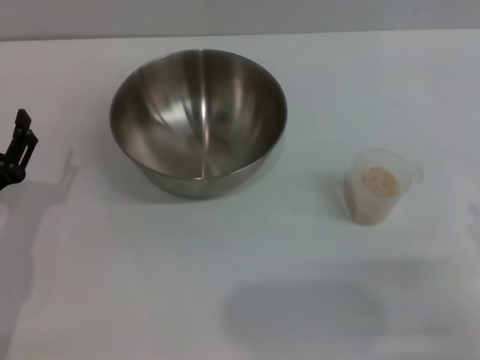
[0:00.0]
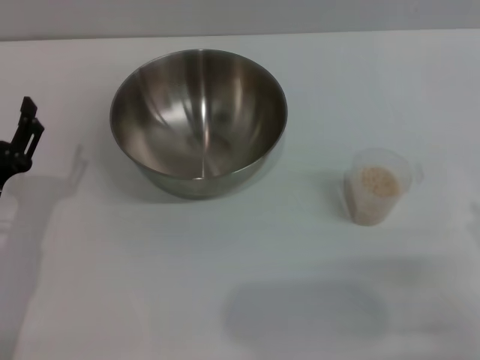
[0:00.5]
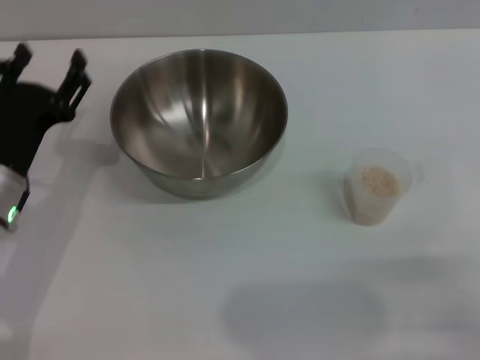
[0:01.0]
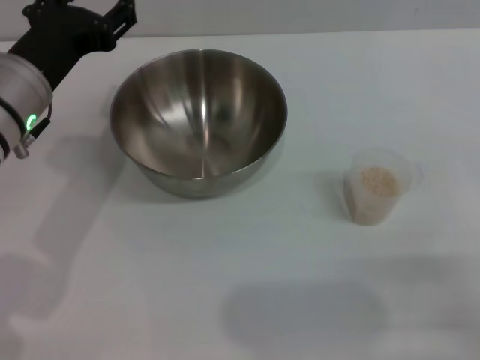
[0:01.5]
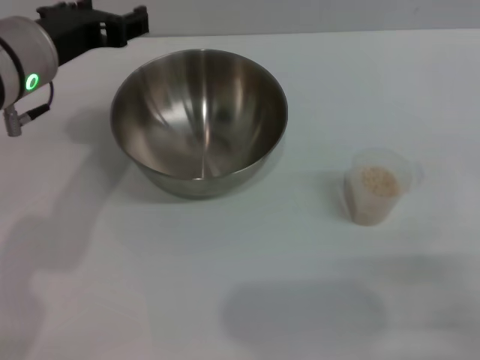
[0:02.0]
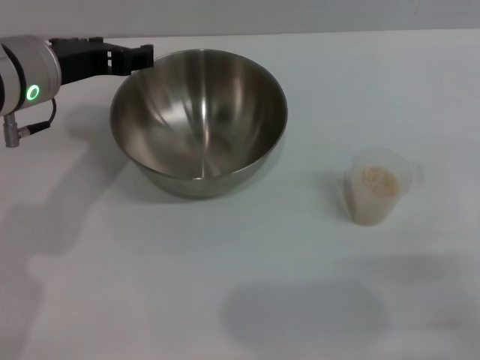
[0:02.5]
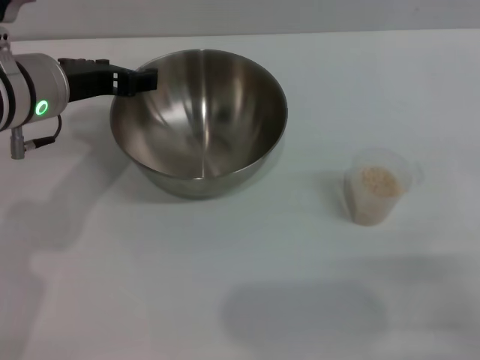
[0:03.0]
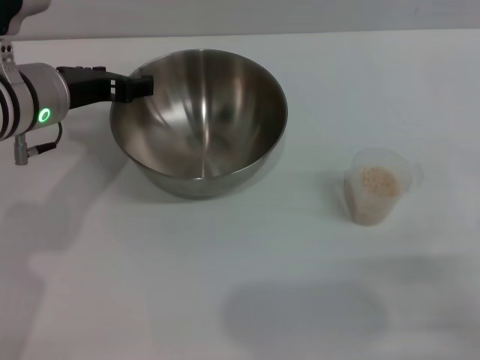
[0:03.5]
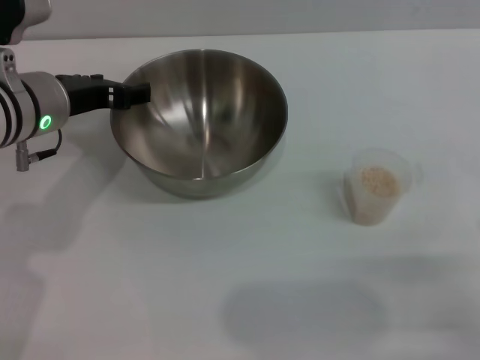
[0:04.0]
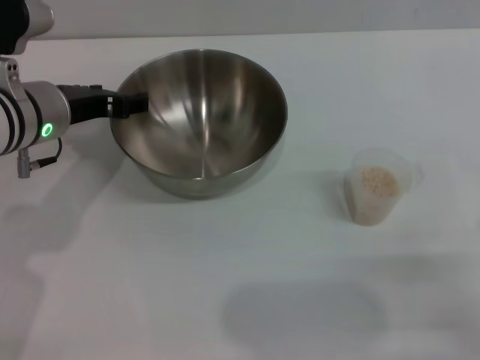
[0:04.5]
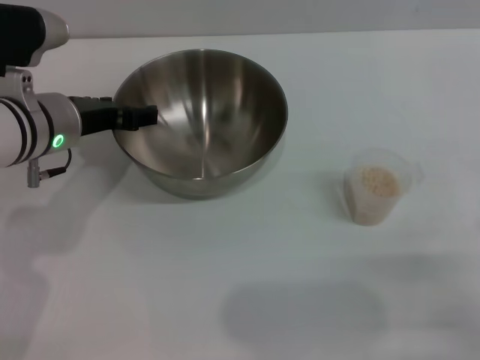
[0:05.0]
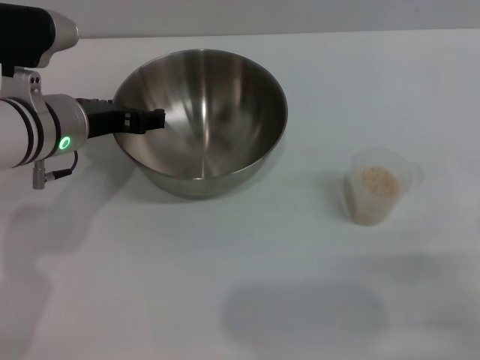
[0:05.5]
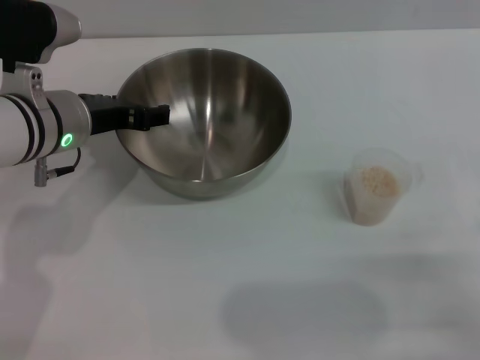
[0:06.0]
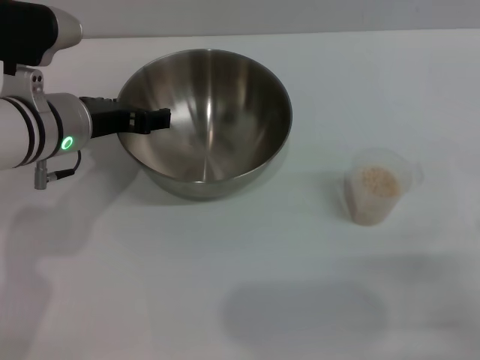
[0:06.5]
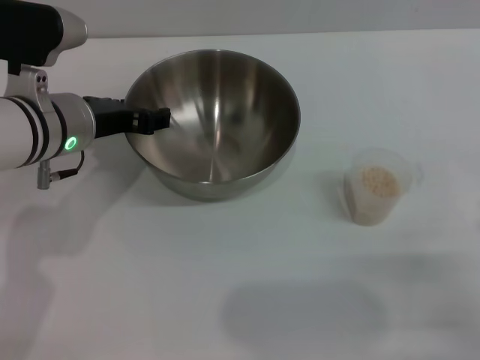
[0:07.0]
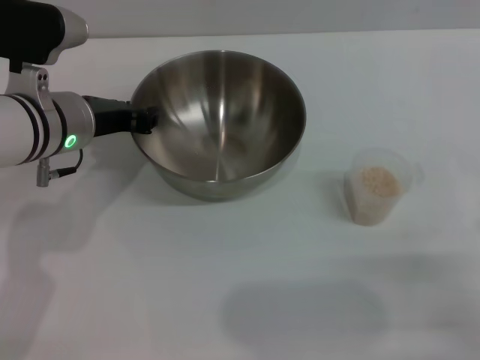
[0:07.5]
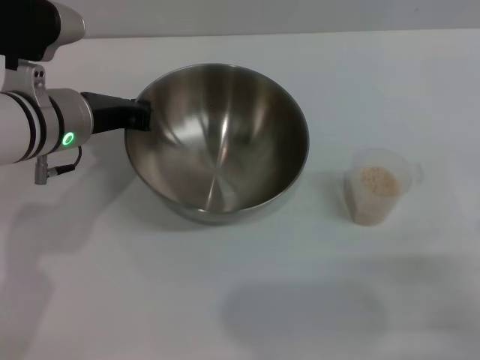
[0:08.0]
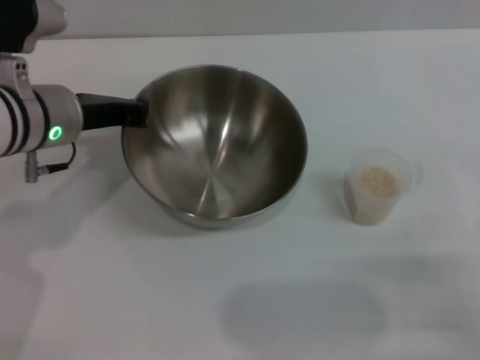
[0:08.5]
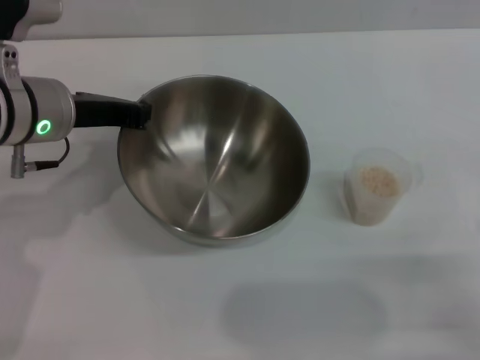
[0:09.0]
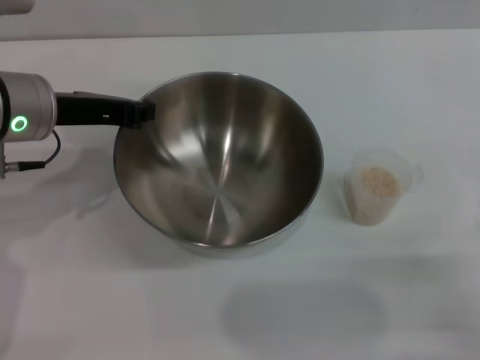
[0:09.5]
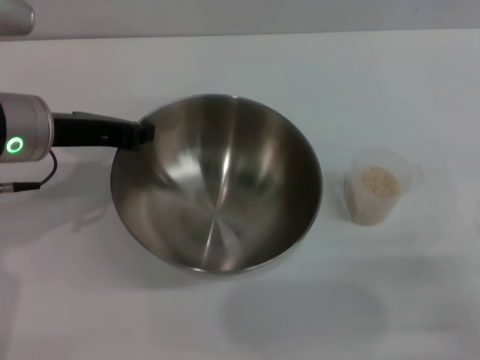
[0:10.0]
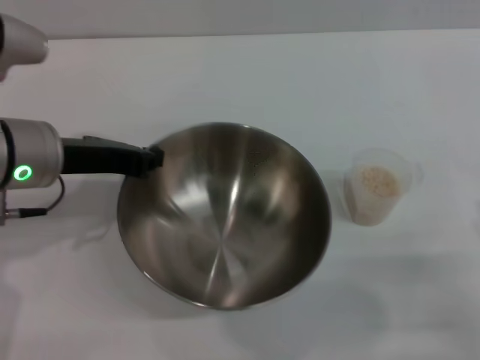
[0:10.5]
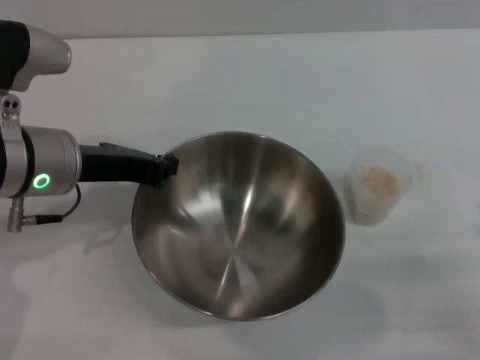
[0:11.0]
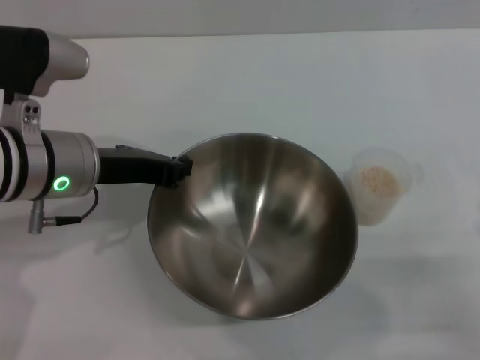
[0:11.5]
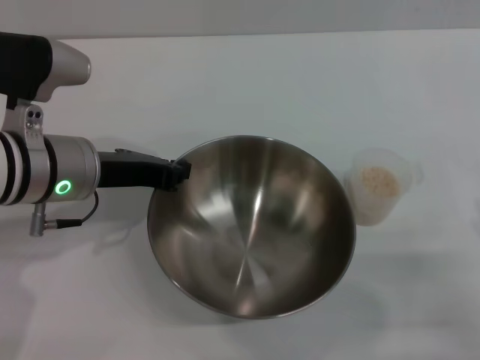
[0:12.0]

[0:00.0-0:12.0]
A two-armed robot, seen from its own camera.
Task of the whole recording: Place the bowl in the middle of the table with one hand and pour the rice from the grain cup into it with the other hand.
Step, 0:00.0 to 0:09.0: Pick up the bowl with the left gripper.
0:00.0 to 0:02.0: The left gripper travels upward, forward and to the right by roughly 25 cm.
0:02.0 to 0:04.0: The left gripper goes about 5 cm downward.
0:04.0 to 0:06.0: There are only small adjustments of the grippers.
0:06.0 to 0:08.0: The left gripper closes its fingers.
0:08.0 to 0:10.0: The left gripper moves roughly 5 cm.

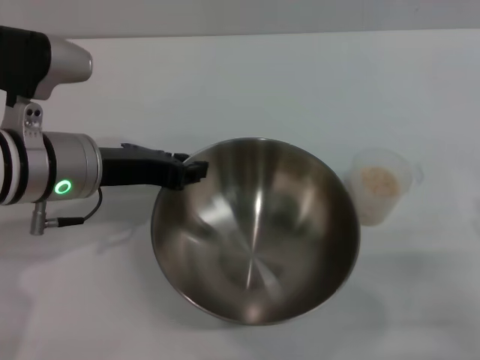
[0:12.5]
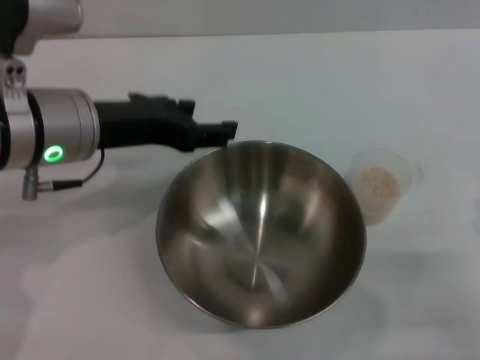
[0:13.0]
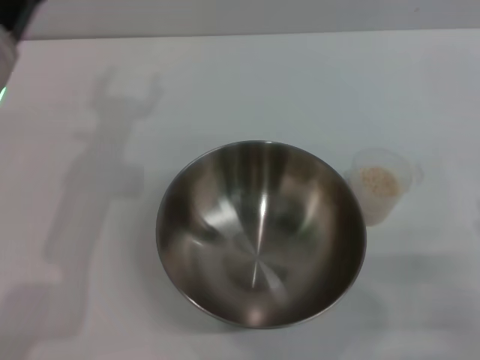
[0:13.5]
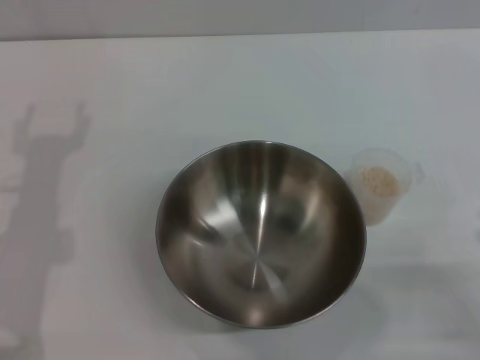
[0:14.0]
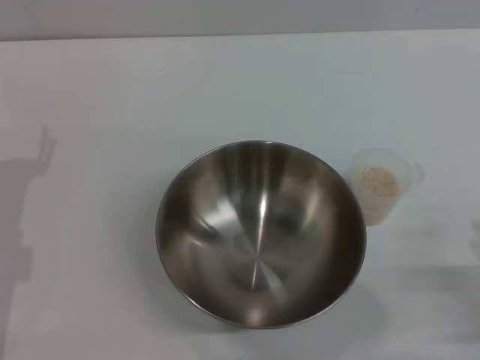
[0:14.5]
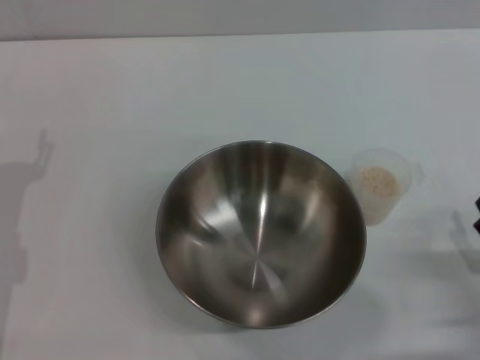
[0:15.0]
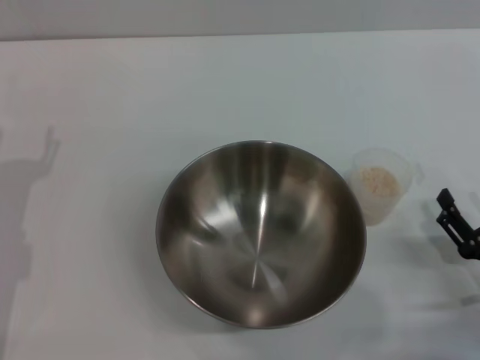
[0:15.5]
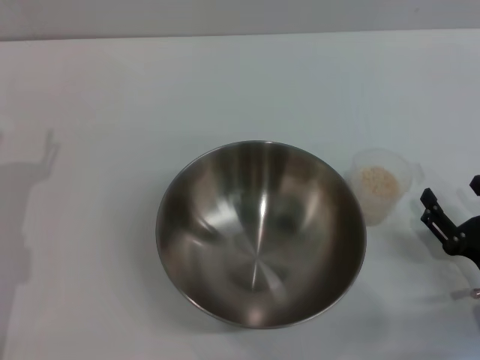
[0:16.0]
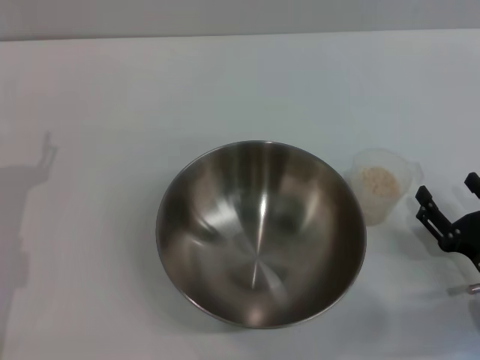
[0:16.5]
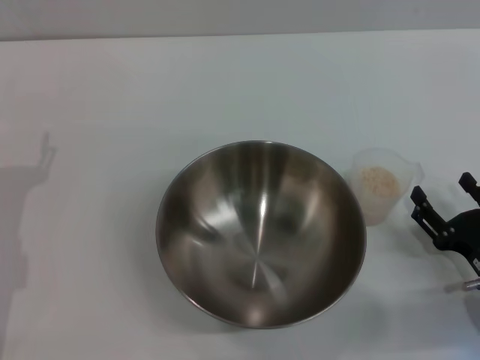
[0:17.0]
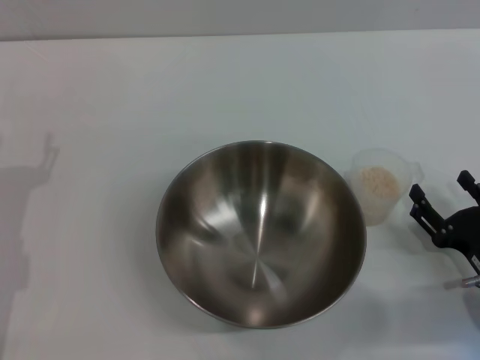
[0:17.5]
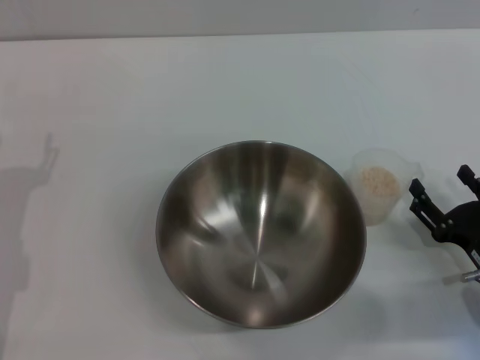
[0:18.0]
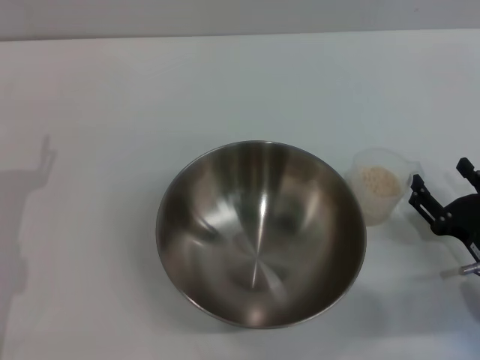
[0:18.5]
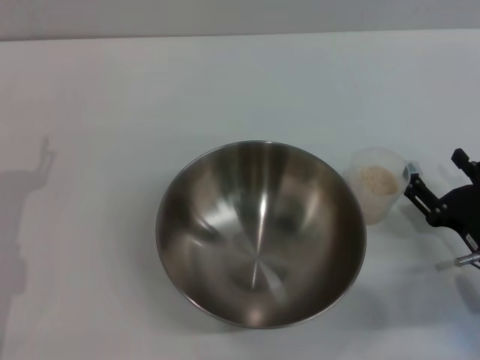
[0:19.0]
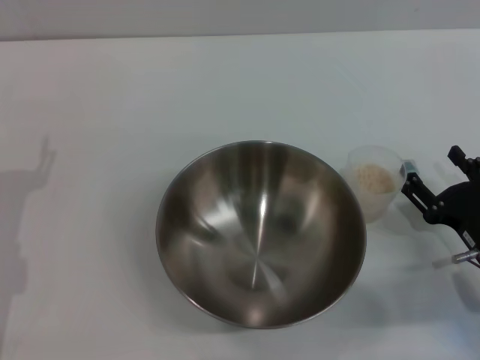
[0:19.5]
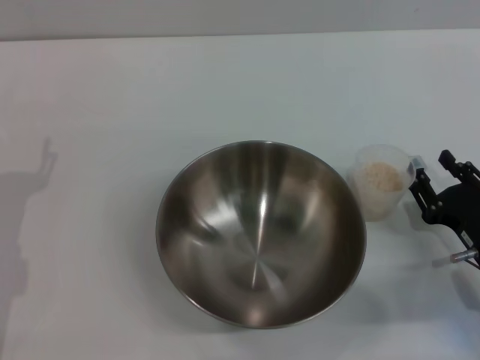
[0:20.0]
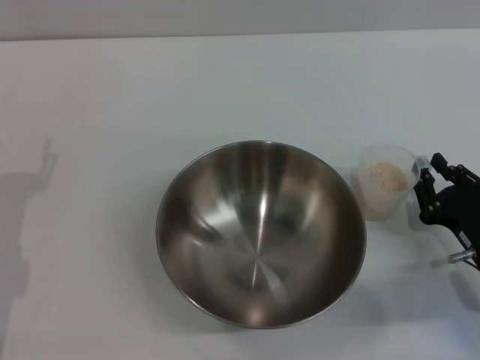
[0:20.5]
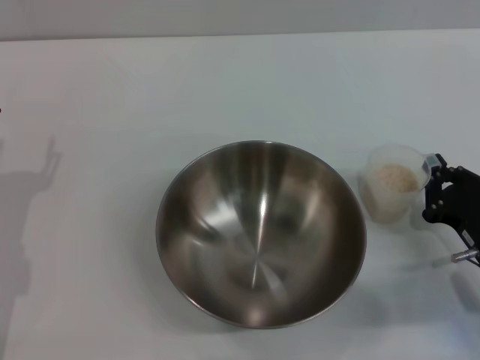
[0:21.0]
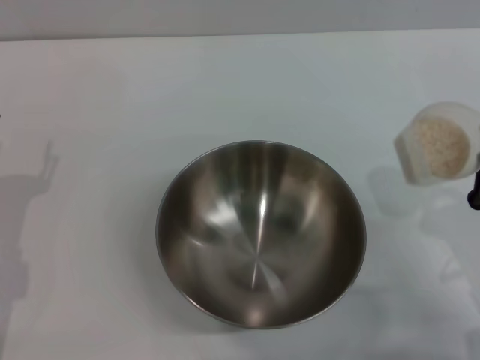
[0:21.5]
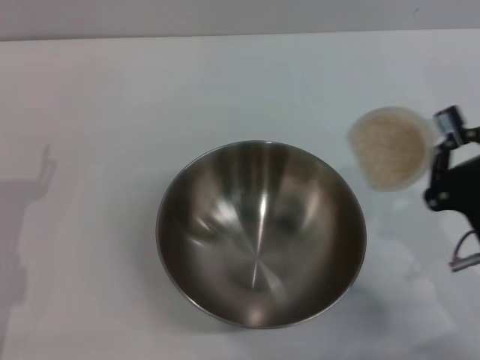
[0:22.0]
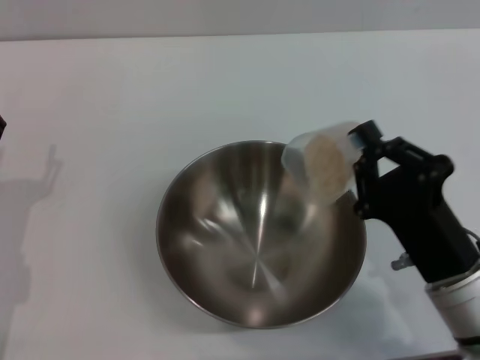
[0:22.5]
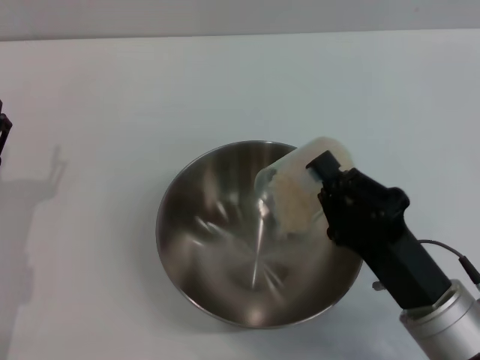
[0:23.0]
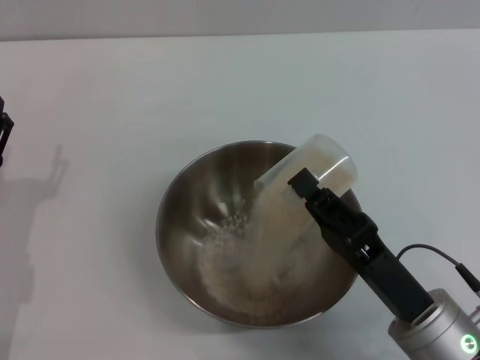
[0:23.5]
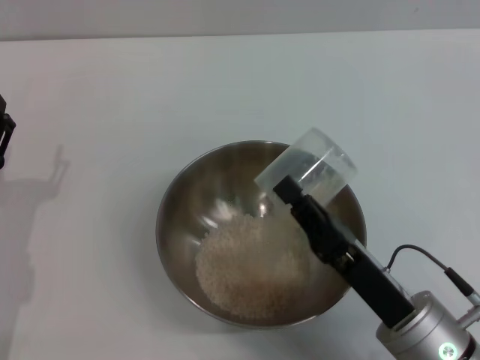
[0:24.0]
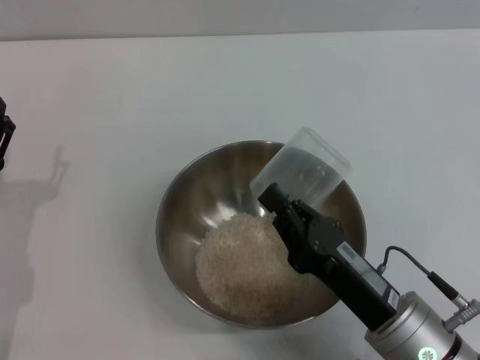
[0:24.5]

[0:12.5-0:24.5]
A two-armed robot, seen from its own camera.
Task of the whole recording: Place the bowl in the middle of the table with one hand and pour the rice from the grain cup into it with the other hand.
Step, 0:13.5 to 0:21.0: Pick up the cup with rice in it with the right gripper.
0:12.5 to 0:14.5: The left gripper is displaced to the left, downward and backward by roughly 15 cm, and opens up.
0:14.5 to 0:16.5: The right gripper shifts some 5 cm forward.
0:16.5 to 0:18.5: The grippers make only small movements.
0:18.5 to 0:20.5: The right gripper closes.
0:20.5 to 0:22.5: The right gripper heads to the left and upward, covering roughly 10 cm.

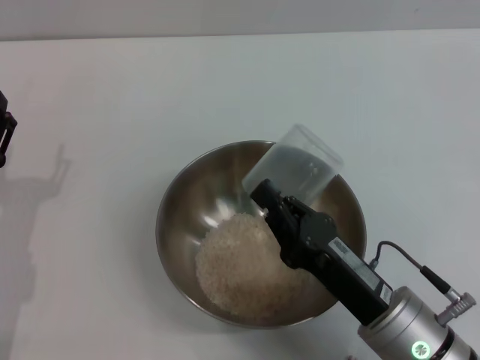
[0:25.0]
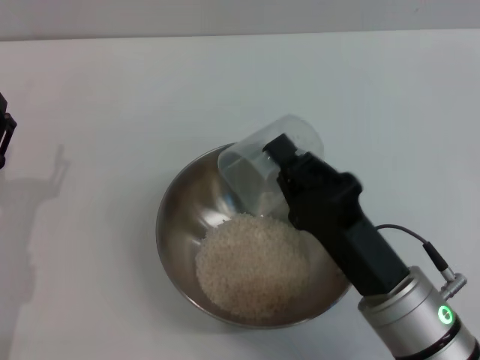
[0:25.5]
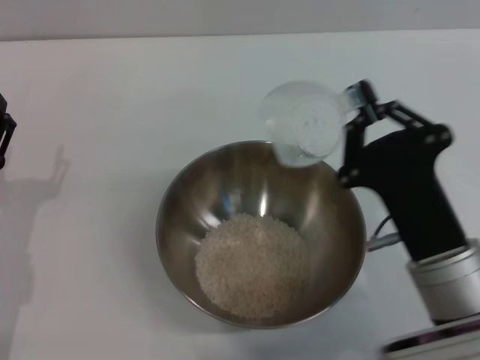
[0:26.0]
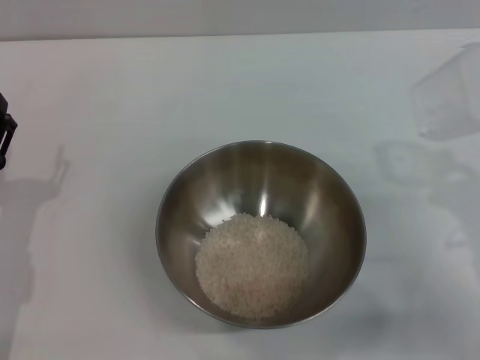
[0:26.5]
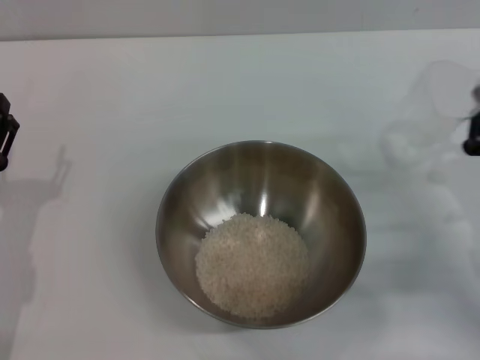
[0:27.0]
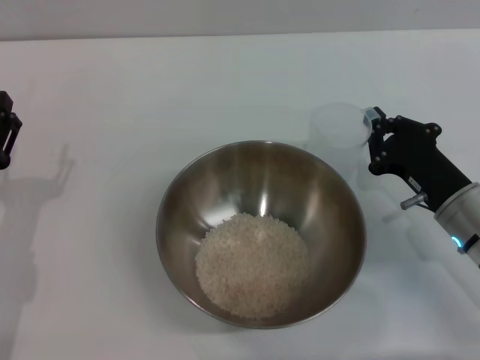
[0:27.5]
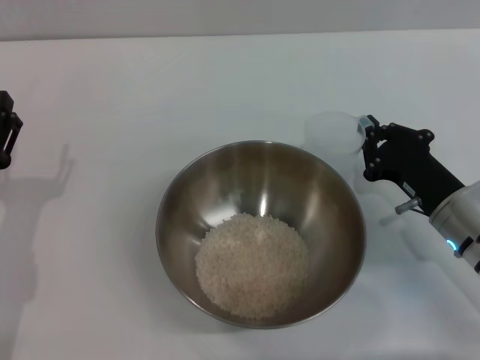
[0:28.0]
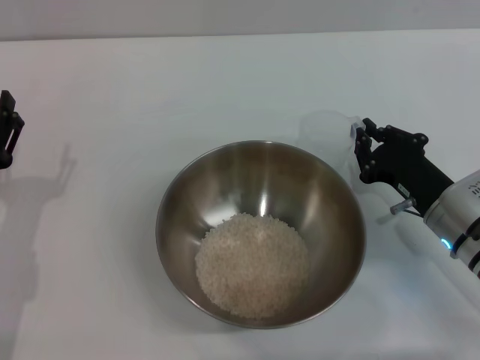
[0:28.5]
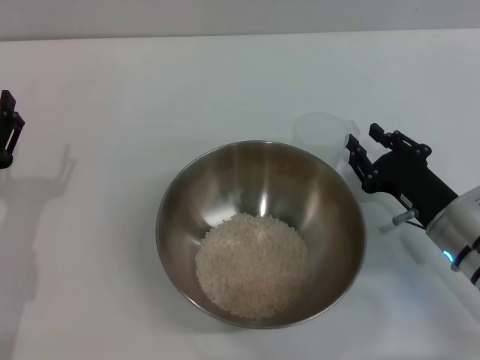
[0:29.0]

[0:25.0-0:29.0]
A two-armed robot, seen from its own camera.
Task of the whole recording: Place the bowl in the middle of the table with one hand and pour the rice from the grain cup into it with the other hand.
0:25.0 to 0:27.0: The right gripper is displaced to the right and forward by some 15 cm.
0:27.0 to 0:29.0: The right gripper travels to the left by approximately 5 cm, and opens up.
